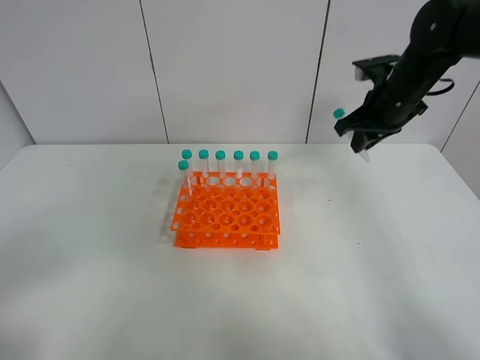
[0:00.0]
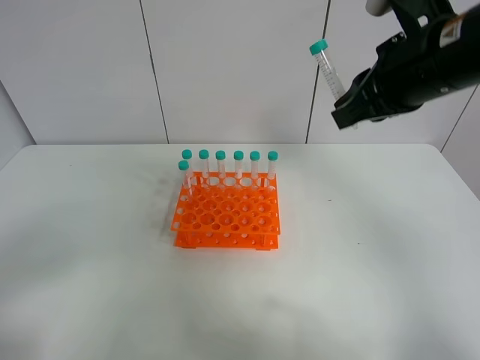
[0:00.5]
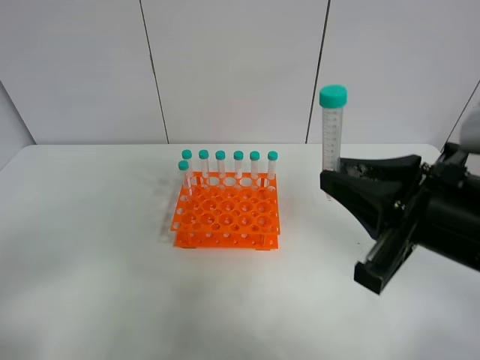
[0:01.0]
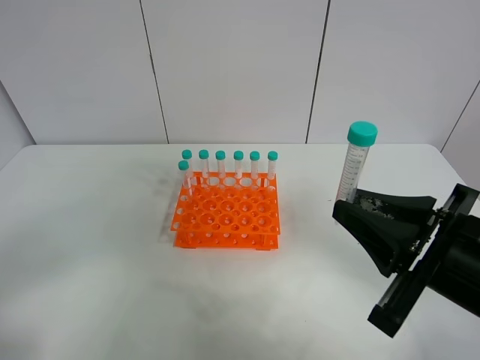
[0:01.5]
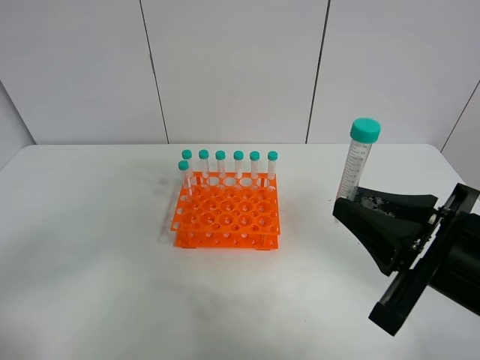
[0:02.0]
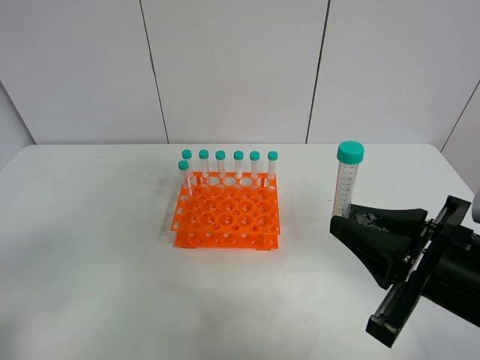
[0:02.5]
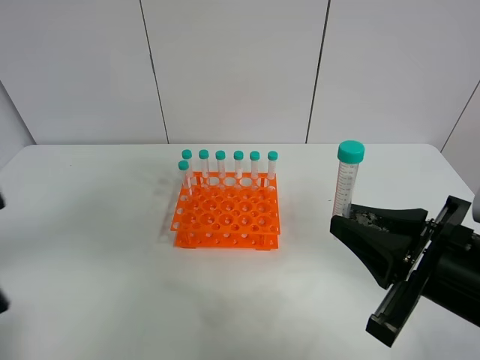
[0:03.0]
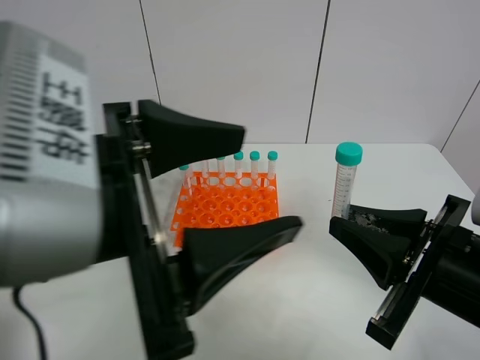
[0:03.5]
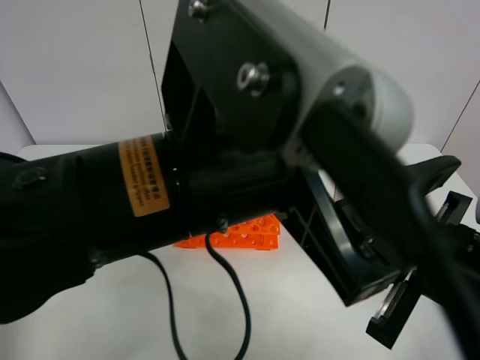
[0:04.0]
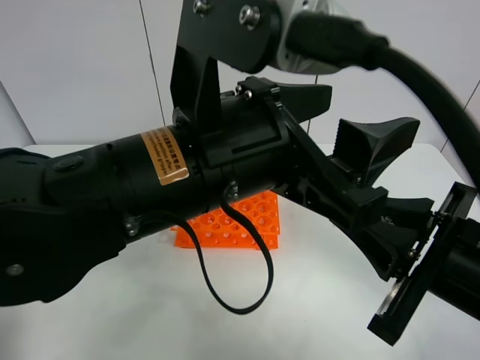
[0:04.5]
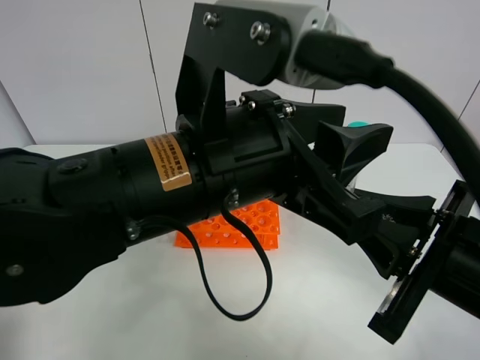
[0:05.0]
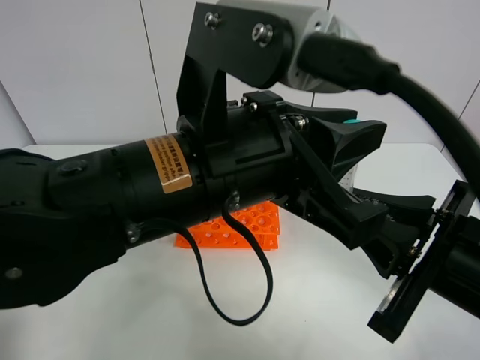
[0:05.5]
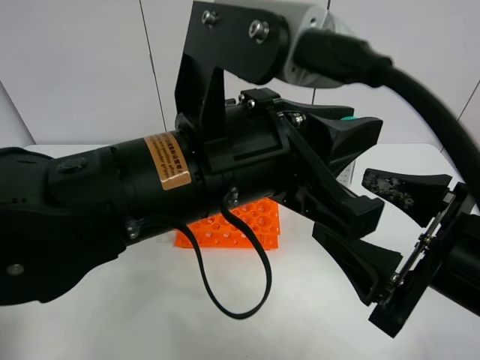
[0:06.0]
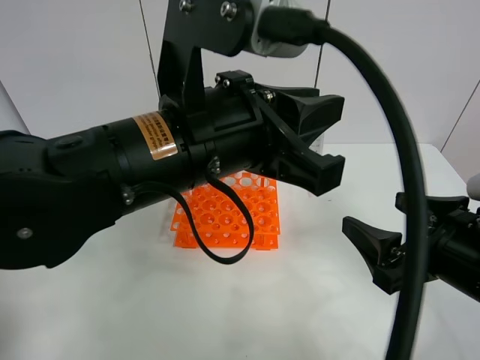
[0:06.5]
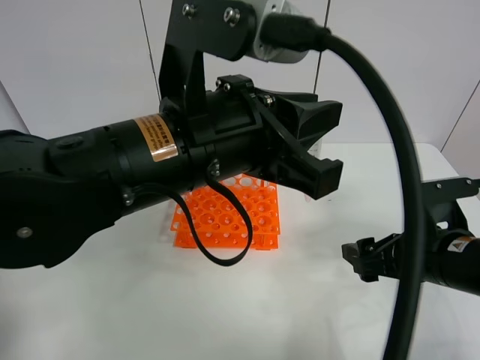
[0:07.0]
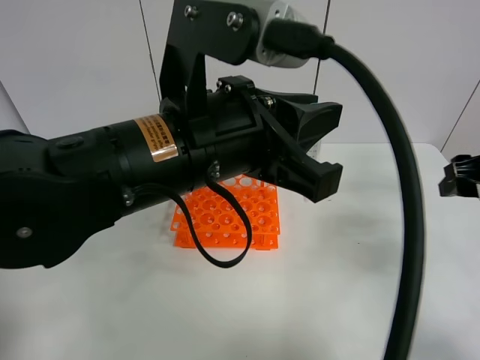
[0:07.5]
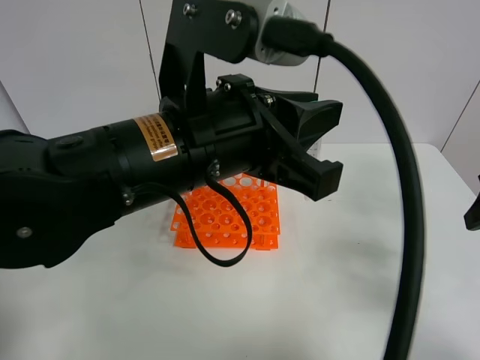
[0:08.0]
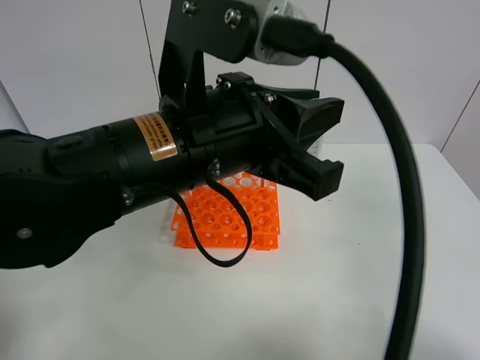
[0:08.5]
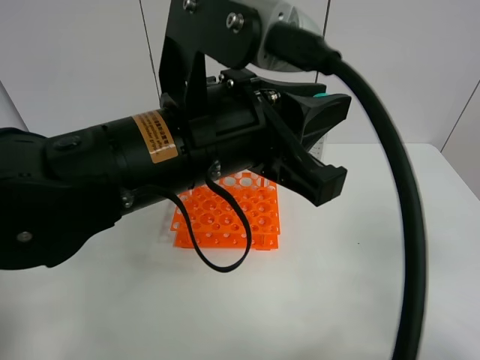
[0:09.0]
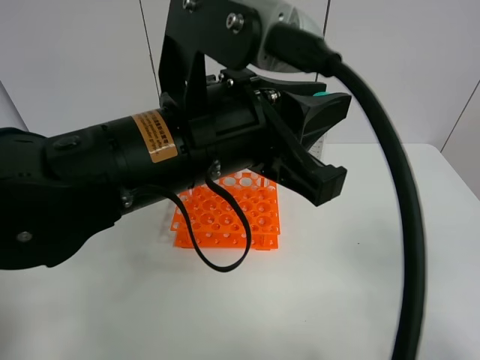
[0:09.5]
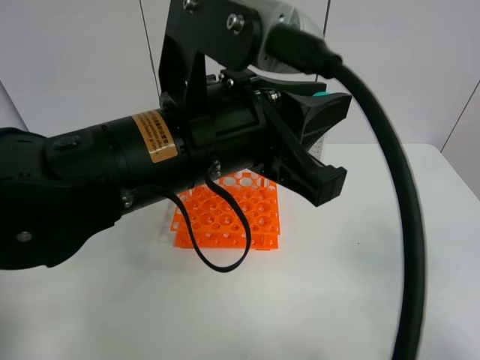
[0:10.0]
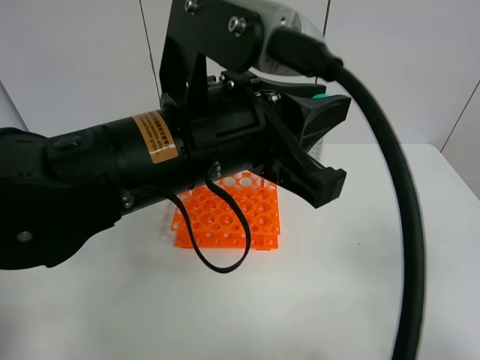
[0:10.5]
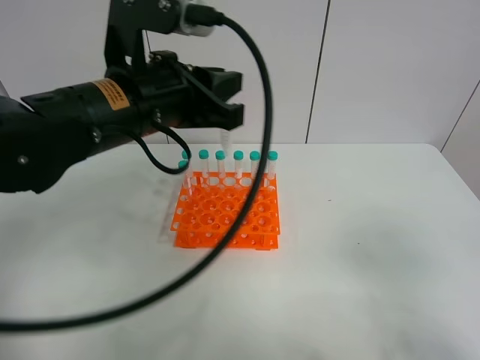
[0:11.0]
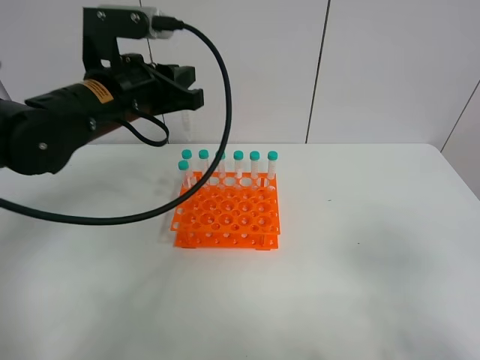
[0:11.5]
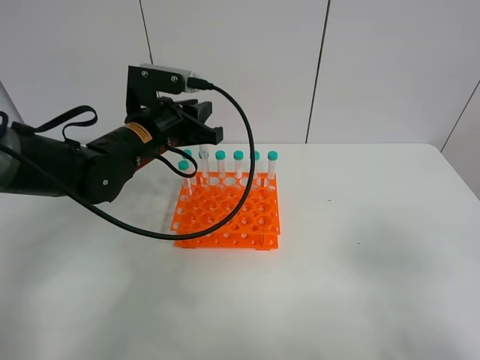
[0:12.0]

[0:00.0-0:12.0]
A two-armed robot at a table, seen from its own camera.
Task of the whole recording: Put the test tube on the table back onto the test tube rack.
Step, 0:00.0 to 0:06.0: Move the test tube from the right gripper to the left gripper.
0:00.0 to 0:02.0: The right gripper goes roughly 30 cm backward.
0:02.0 to 0:04.0: The left gripper goes roughly 30 cm to the right and forward.
0:04.0 to 0:06.0: The right gripper opens up, while the left gripper closes its fingers.
0:06.0 to 0:08.0: The right gripper moves to the right, forward and upward, roughly 15 cm.
0:08.0 to 0:10.0: The right gripper travels backward by roughly 20 cm.
0:10.0 to 0:12.0: The left gripper is displaced forward, downward and to the left by about 20 cm.

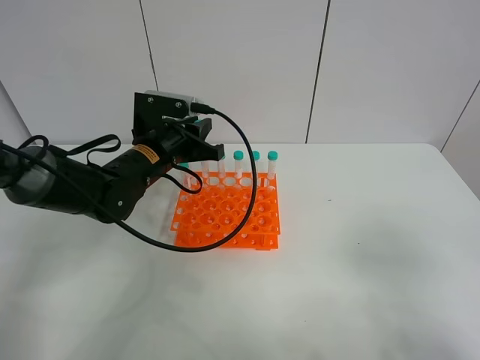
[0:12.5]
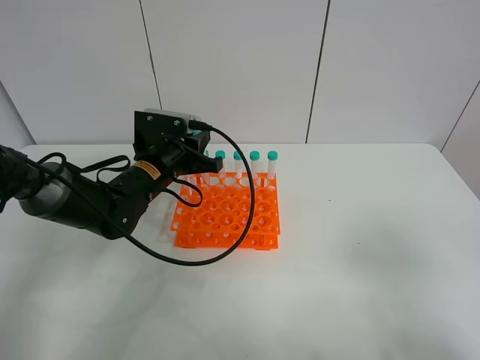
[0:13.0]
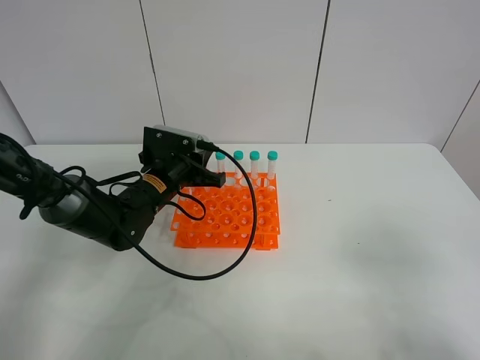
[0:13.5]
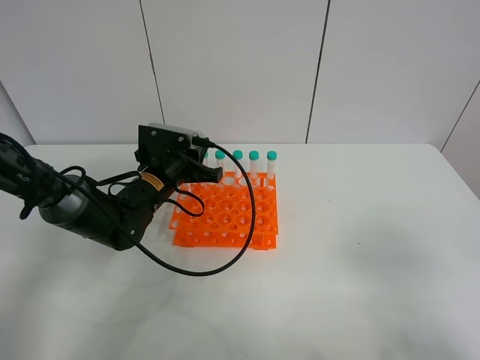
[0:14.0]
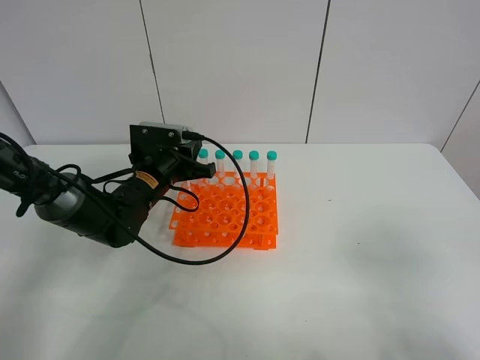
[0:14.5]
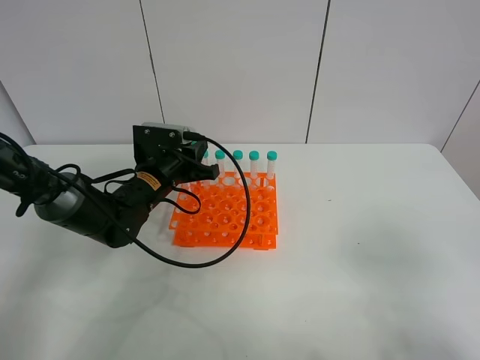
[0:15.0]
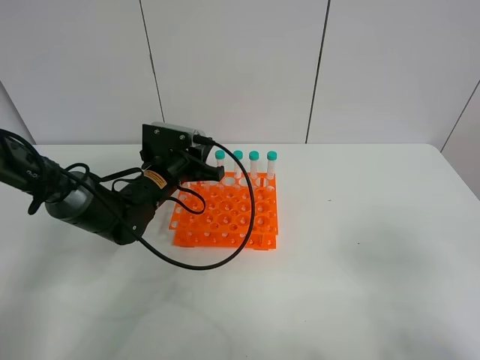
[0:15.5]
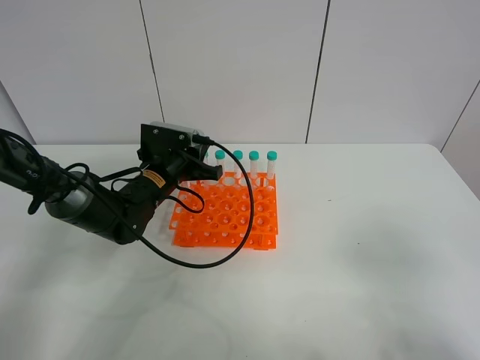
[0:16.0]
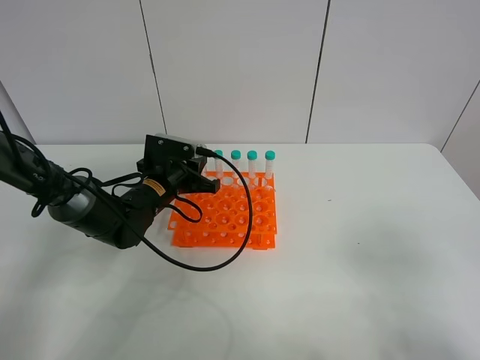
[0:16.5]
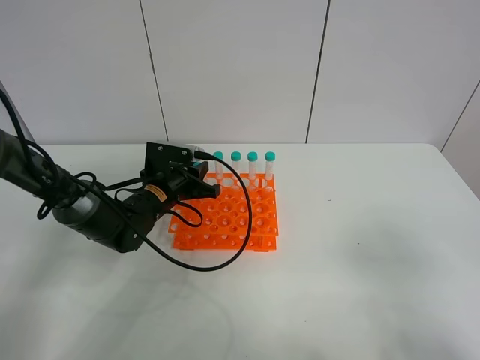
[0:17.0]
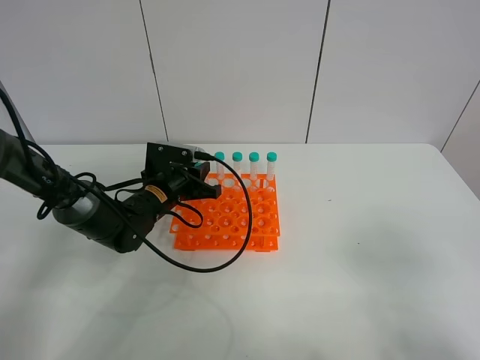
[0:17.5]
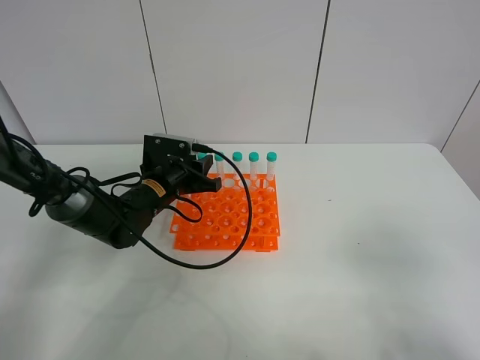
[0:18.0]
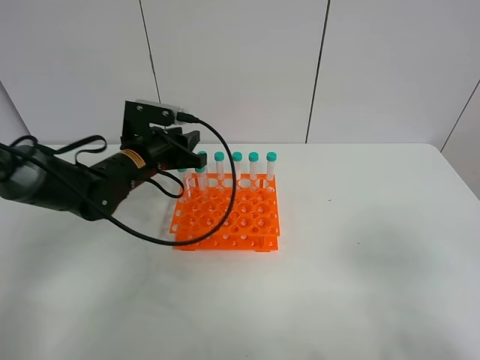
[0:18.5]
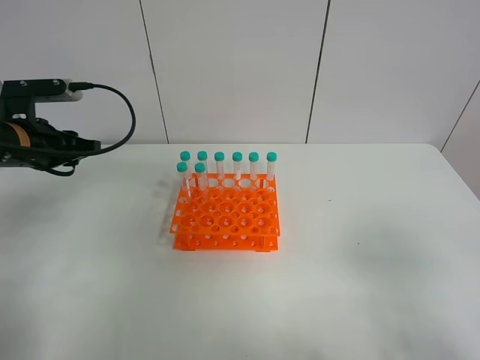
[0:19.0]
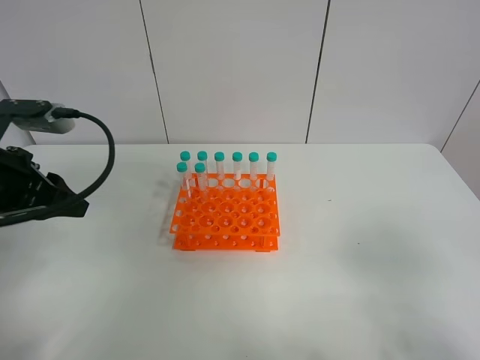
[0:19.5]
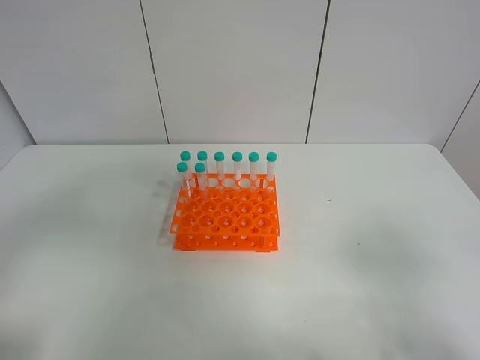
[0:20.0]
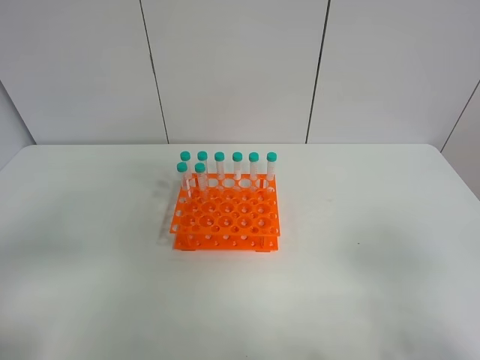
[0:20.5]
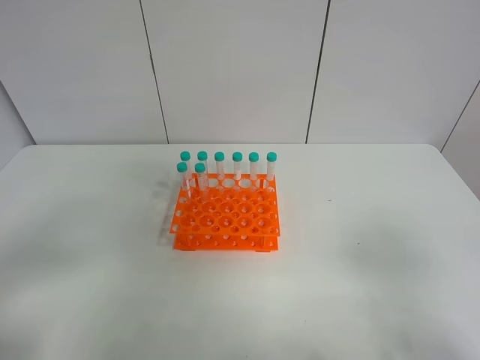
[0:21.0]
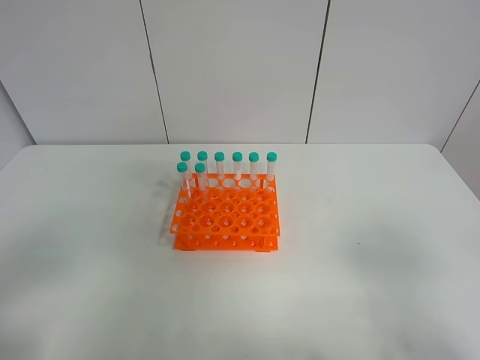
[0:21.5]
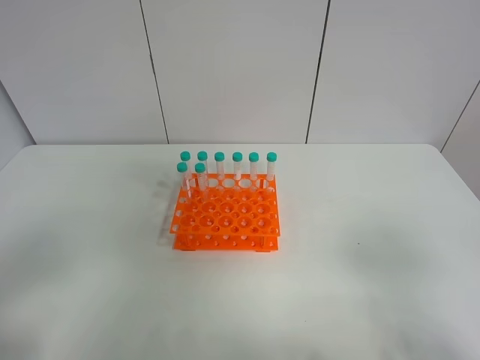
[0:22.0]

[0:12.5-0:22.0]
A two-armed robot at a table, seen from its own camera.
Task of the whole recording: Put the test tube on the table back onto the test tube rack.
Step, 0:12.5 to 0:18.0: Place the test tube on the test tube rack with the left gripper.
0:12.5 to 0:14.5: The left gripper travels downward by roughly 5 cm.
0:14.5 to 0:18.0: The grippers stay close to where they were, moving slightly.
0:18.0 to 0:20.0: The left gripper travels backward, upward and to the left by roughly 35 cm.

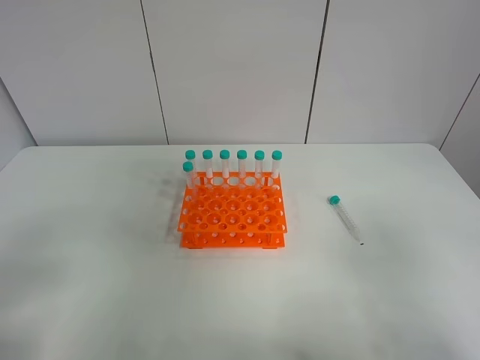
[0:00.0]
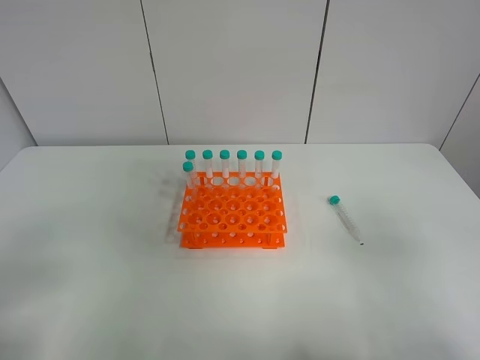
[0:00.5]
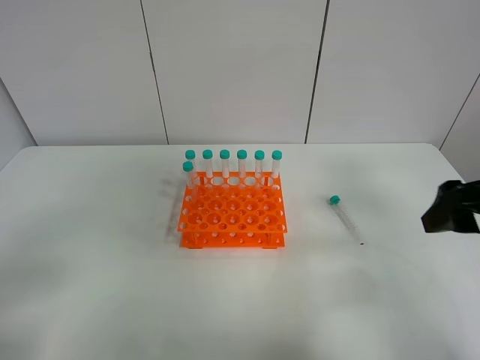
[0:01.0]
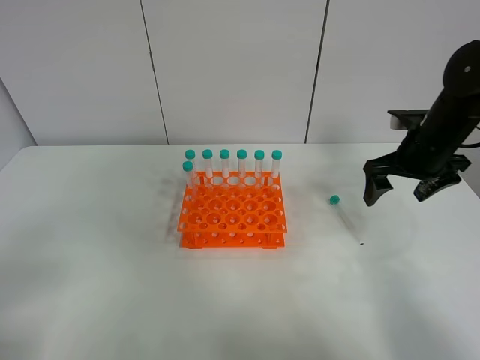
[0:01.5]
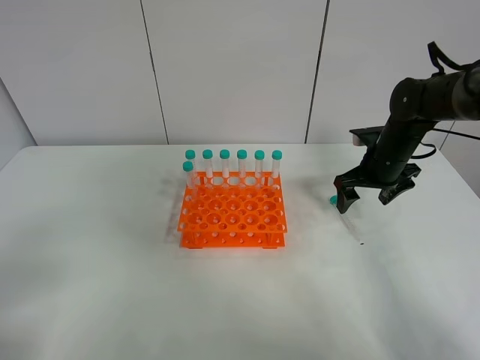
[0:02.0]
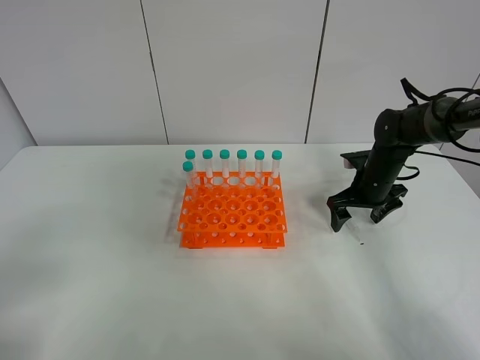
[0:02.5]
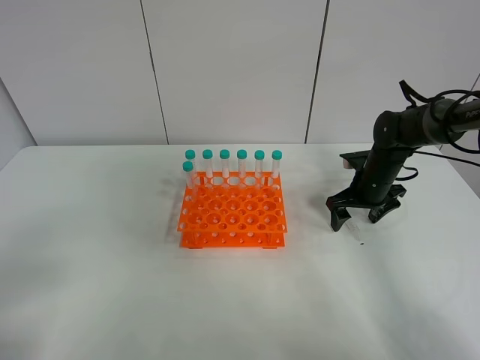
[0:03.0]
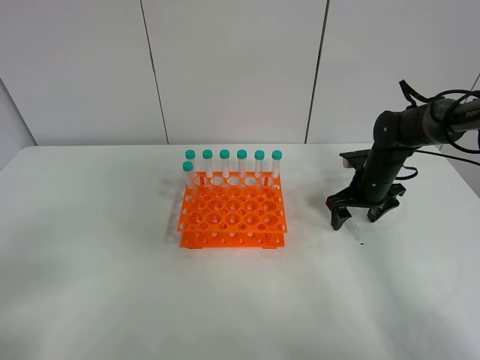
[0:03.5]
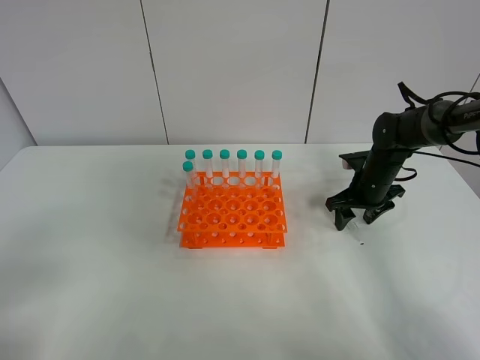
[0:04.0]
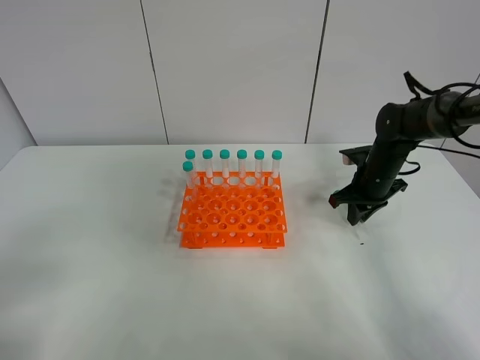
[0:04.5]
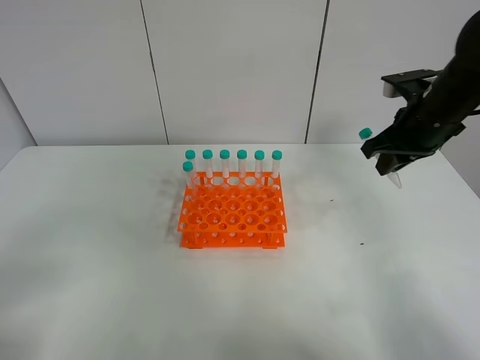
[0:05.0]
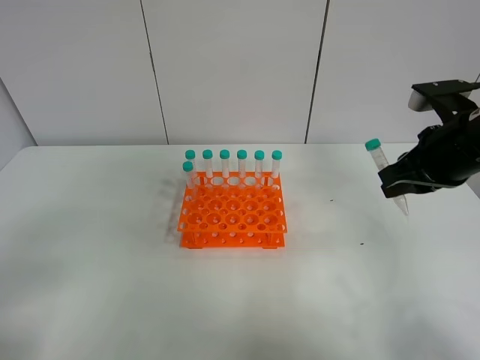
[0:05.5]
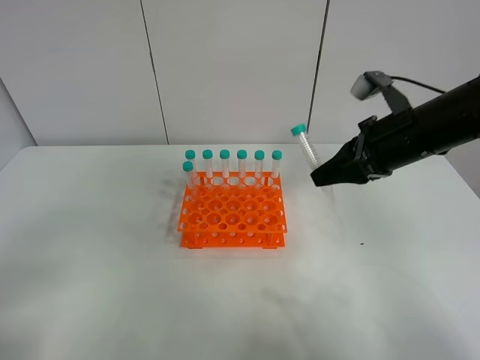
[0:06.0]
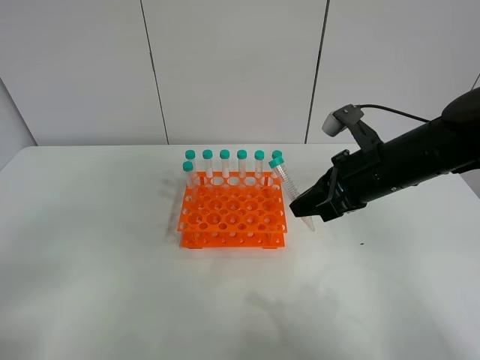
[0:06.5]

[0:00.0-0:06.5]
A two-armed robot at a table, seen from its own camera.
Task of the whole recording: Put the test tube on the table back onto the test tube rack.
Step, 0:00.0 to 0:04.0: Pick up the test tube with the right gripper.
0:00.0 to 0:02.0: The right gripper heads forward, covering some 40 cm.
0:02.0 to 0:04.5: The right gripper closes up.
0:04.5 to 0:06.5: The right gripper shifts approximately 20 cm backward, upward and to the left.
